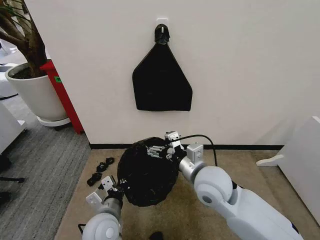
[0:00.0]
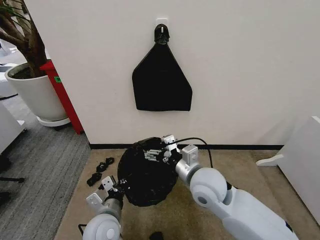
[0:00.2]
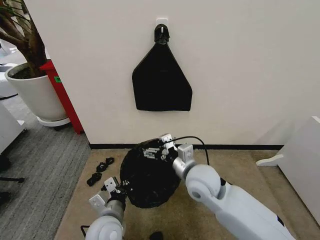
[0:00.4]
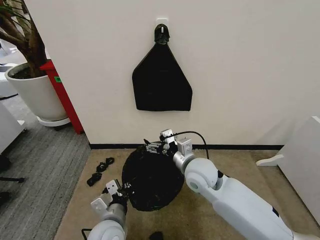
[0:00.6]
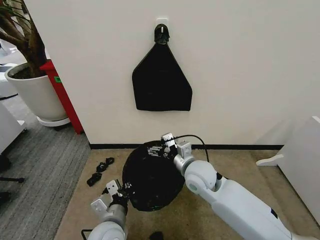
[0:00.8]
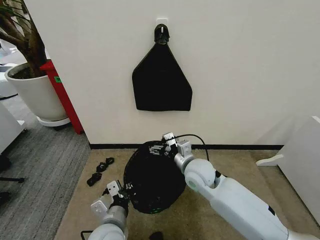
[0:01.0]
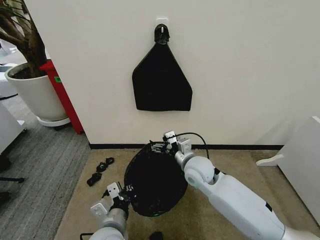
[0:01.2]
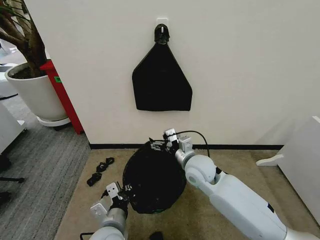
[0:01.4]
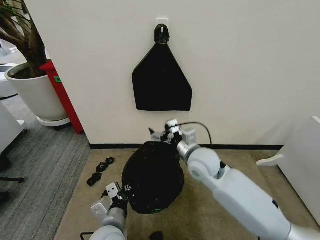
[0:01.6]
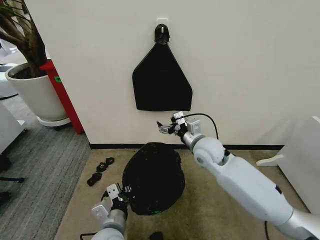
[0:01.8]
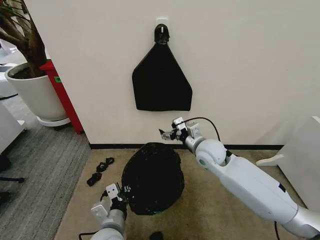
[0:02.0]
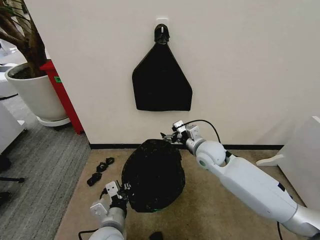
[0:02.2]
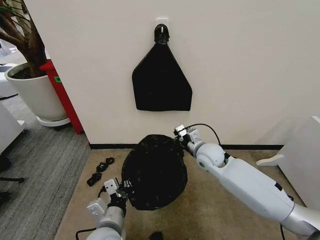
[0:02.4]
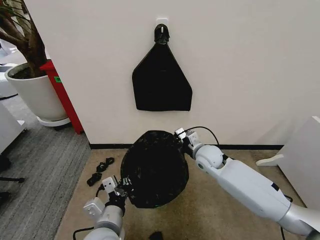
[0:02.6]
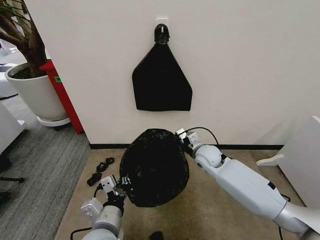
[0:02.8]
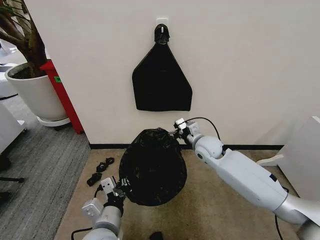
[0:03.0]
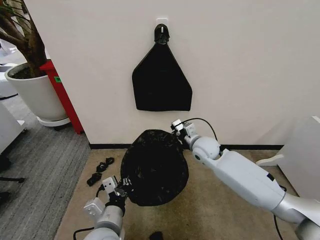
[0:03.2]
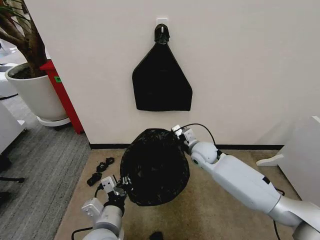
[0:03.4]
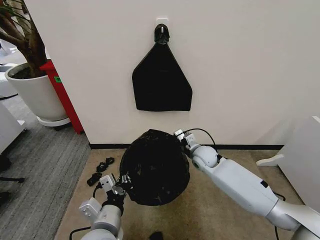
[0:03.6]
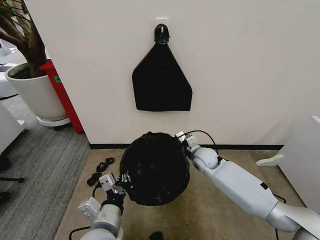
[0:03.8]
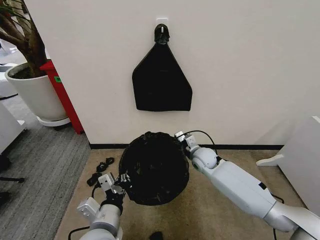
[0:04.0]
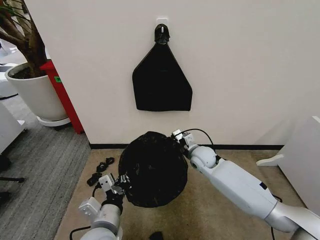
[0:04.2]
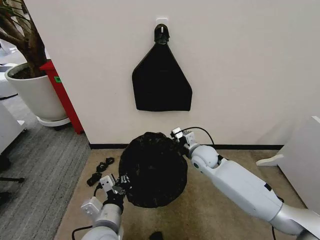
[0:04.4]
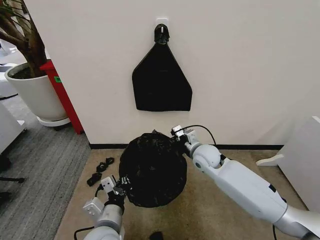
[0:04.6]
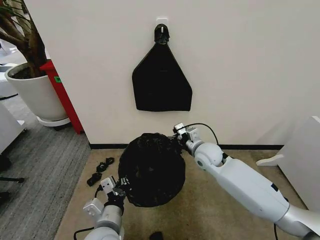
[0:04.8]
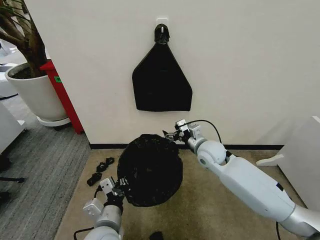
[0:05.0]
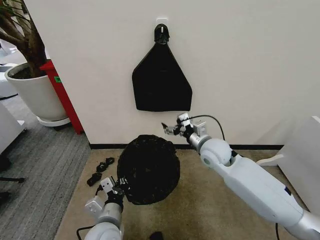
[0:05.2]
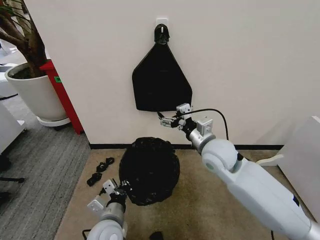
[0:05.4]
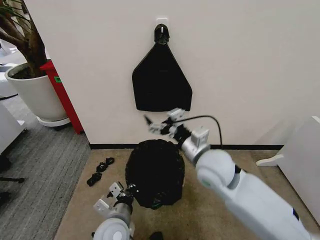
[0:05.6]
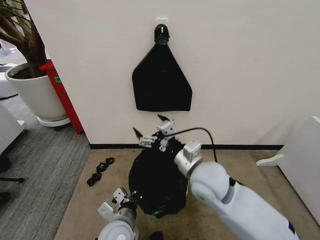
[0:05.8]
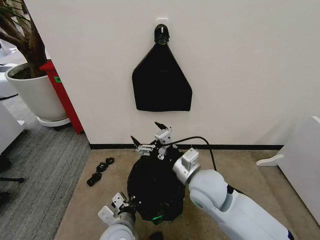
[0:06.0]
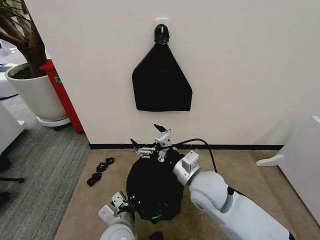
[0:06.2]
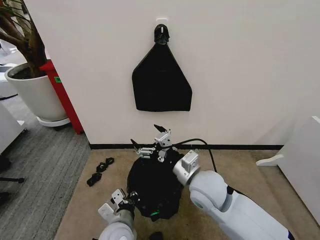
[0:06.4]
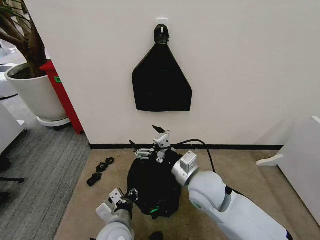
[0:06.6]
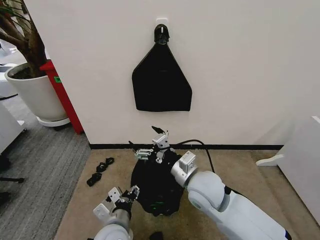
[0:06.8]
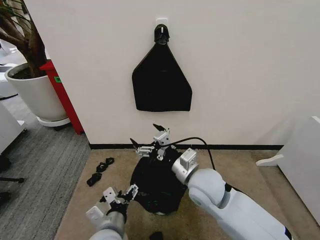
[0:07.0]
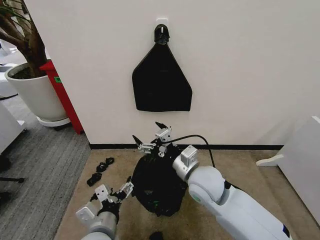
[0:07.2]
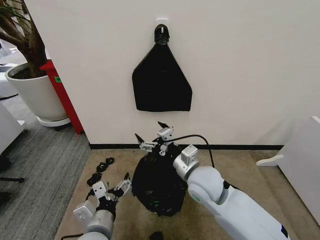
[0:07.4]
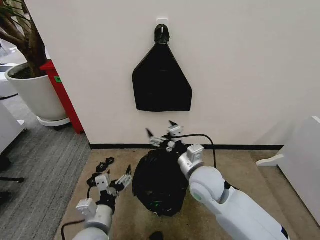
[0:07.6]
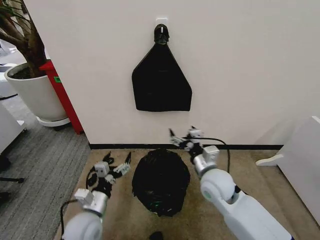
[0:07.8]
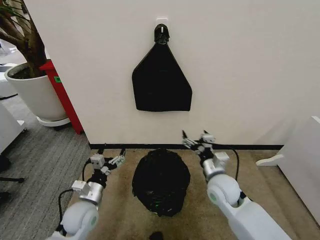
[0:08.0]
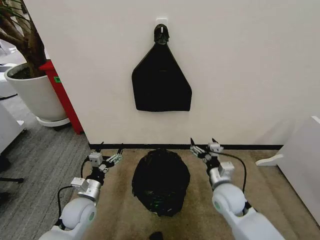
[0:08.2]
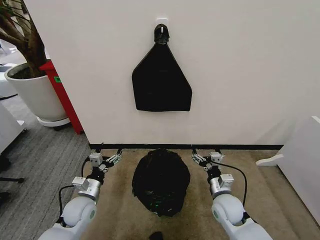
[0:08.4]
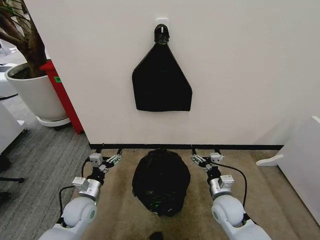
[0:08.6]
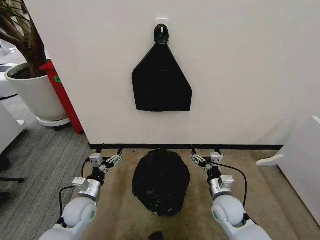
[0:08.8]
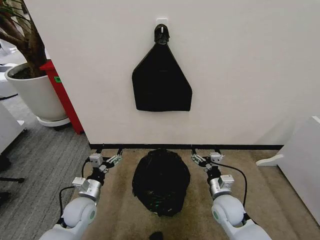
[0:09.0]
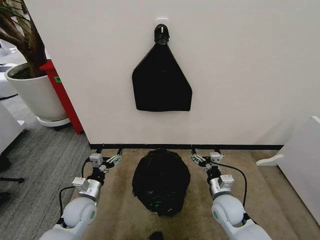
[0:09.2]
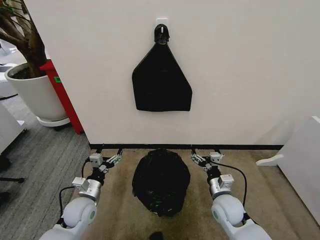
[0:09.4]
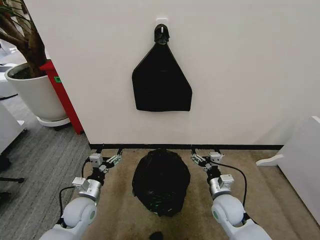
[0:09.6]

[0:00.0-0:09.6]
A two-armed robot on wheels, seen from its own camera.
Task of the whole recording: Place the garbage bag over the trash bin.
0:00.0 to 0:01.6: The right gripper travels forward by some 10 cm.
0:01.6 to 0:03.2: The right gripper travels forward by approximately 10 cm.
0:04.8 to 0:06.4: The right gripper travels backward by approximately 15 cm.
0:06.4 to 0:08.0: The right gripper shifts roughly 10 cm downward and to the right. The left gripper shifts about 15 cm to the left and forward, and opens its fingers.
0:08.0 to 0:09.6: The right gripper goes about 5 cm downward.

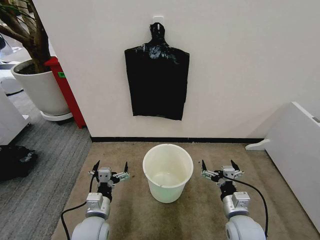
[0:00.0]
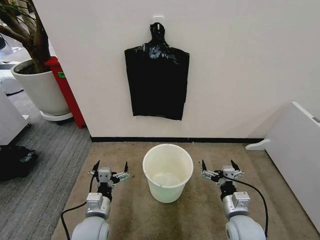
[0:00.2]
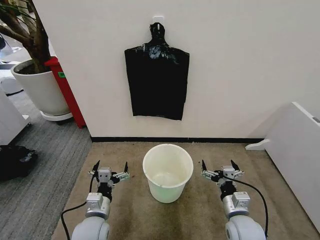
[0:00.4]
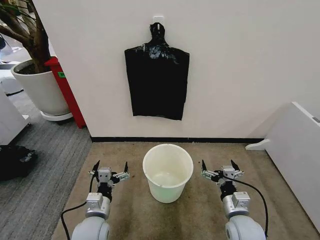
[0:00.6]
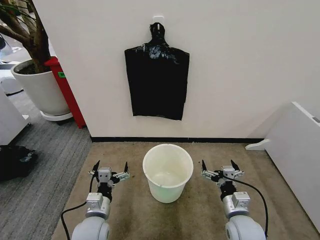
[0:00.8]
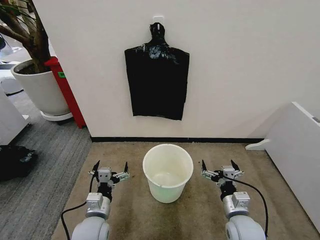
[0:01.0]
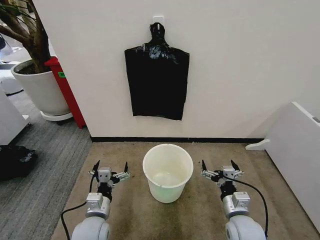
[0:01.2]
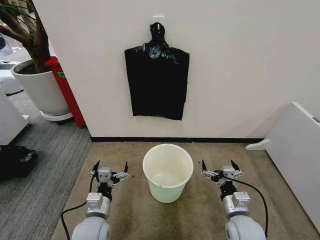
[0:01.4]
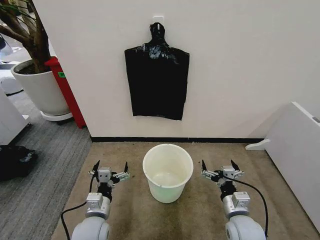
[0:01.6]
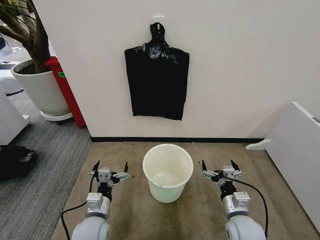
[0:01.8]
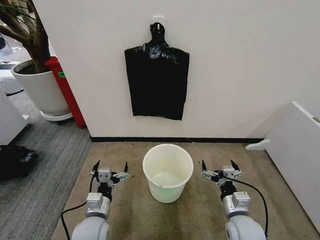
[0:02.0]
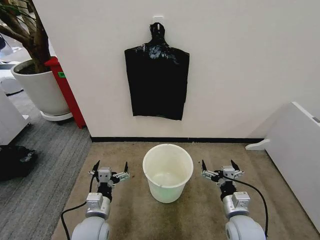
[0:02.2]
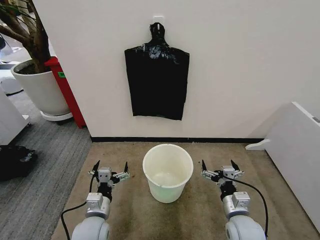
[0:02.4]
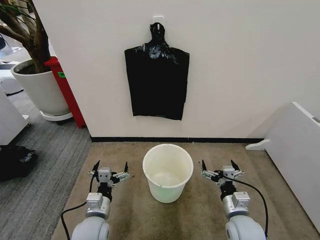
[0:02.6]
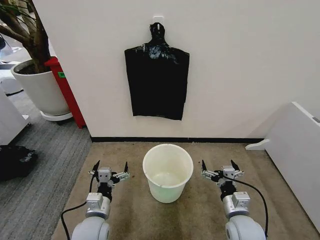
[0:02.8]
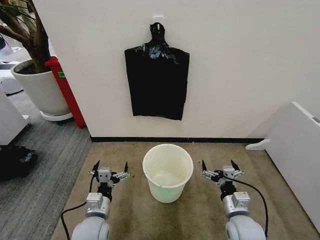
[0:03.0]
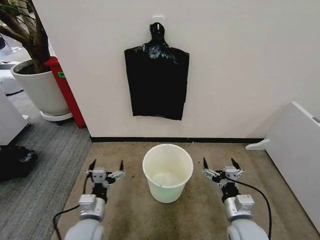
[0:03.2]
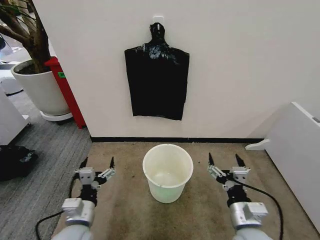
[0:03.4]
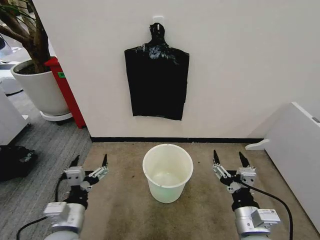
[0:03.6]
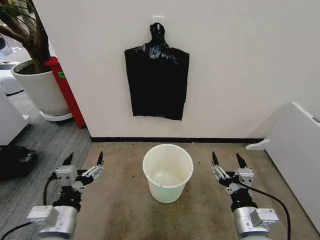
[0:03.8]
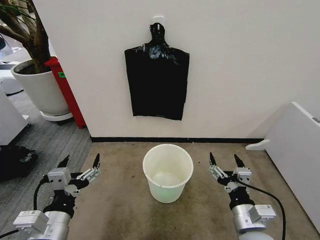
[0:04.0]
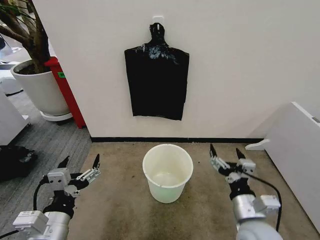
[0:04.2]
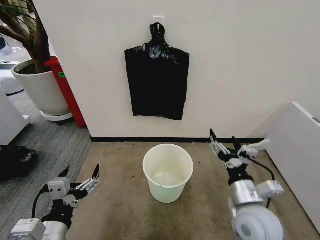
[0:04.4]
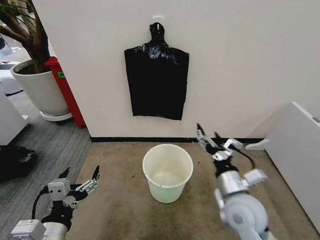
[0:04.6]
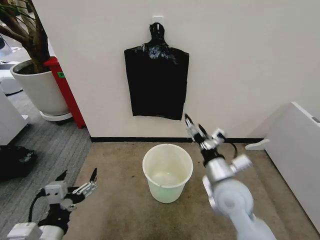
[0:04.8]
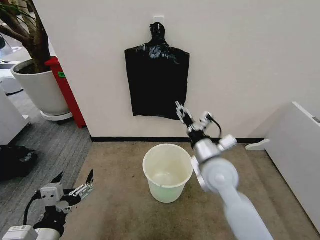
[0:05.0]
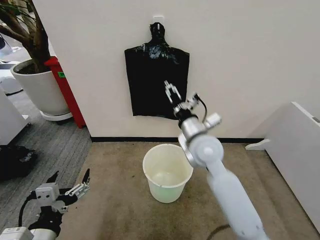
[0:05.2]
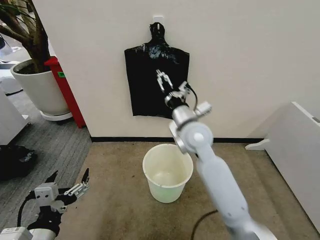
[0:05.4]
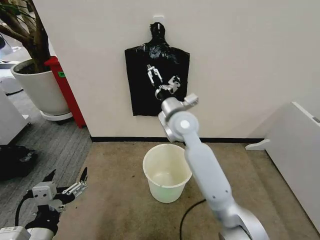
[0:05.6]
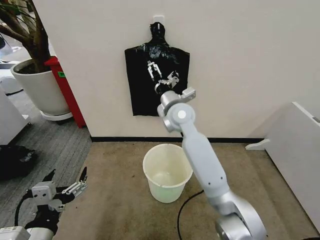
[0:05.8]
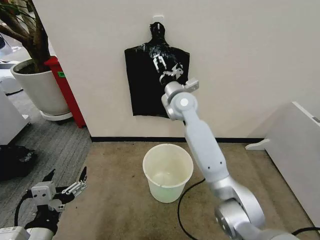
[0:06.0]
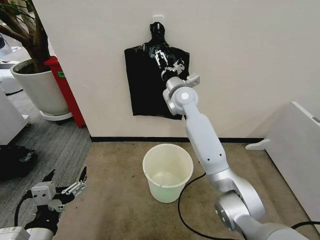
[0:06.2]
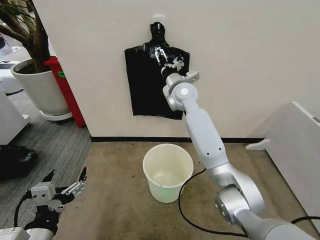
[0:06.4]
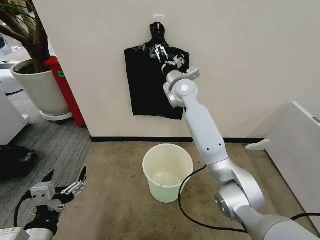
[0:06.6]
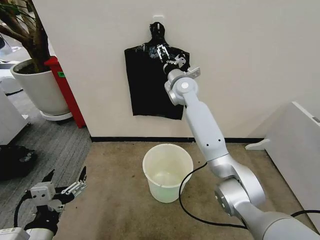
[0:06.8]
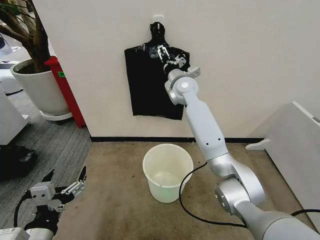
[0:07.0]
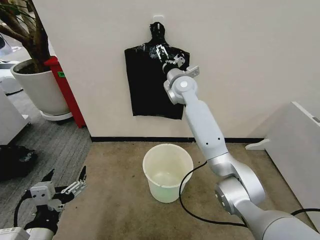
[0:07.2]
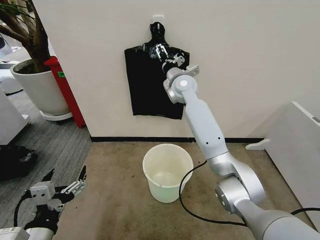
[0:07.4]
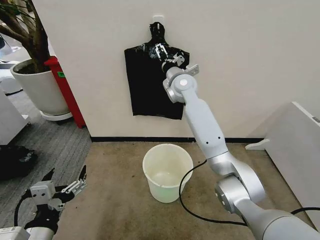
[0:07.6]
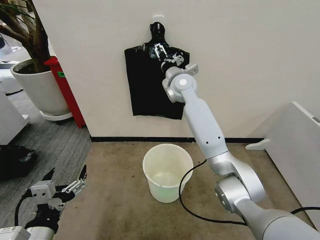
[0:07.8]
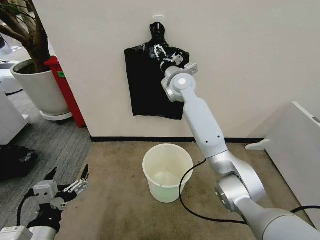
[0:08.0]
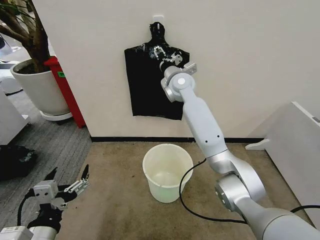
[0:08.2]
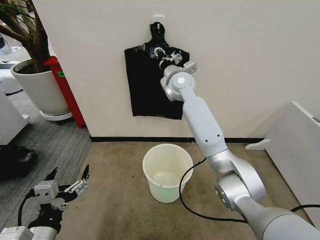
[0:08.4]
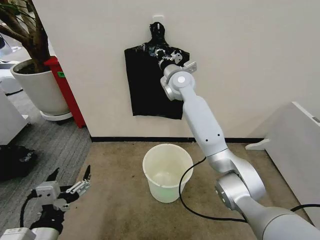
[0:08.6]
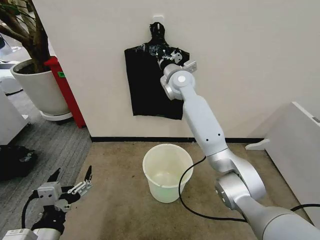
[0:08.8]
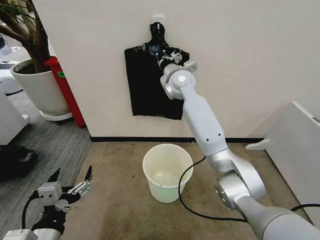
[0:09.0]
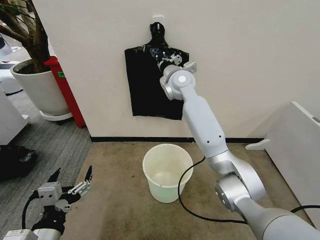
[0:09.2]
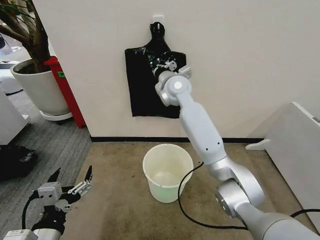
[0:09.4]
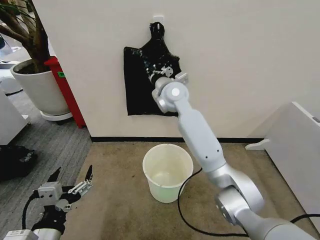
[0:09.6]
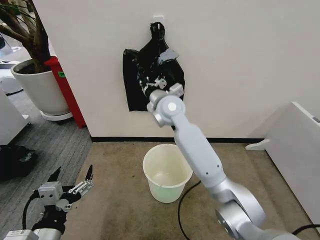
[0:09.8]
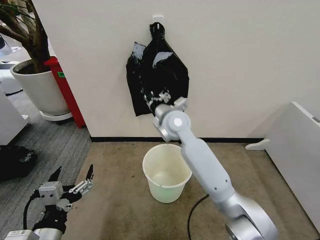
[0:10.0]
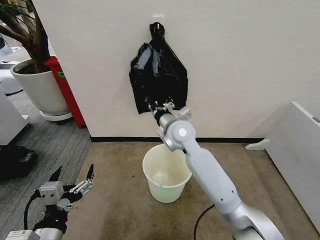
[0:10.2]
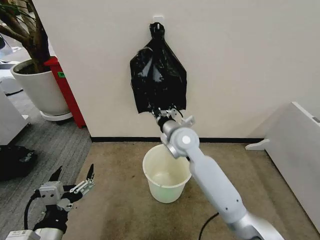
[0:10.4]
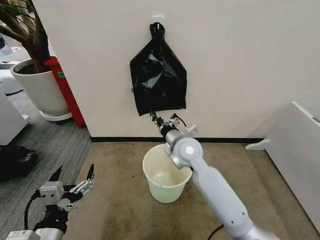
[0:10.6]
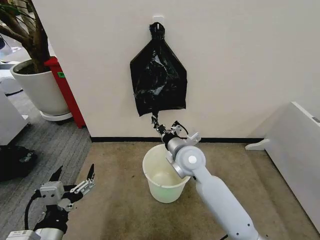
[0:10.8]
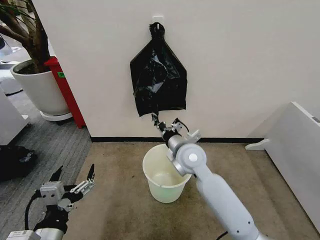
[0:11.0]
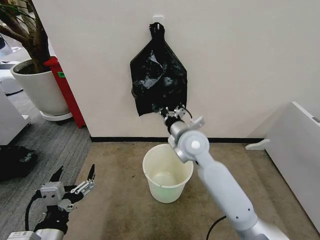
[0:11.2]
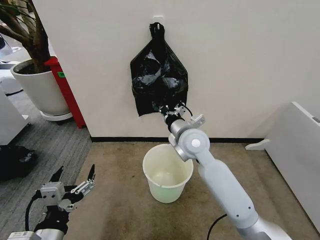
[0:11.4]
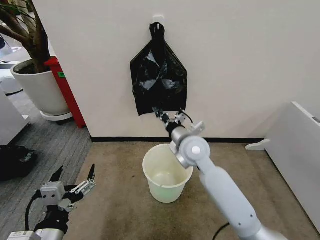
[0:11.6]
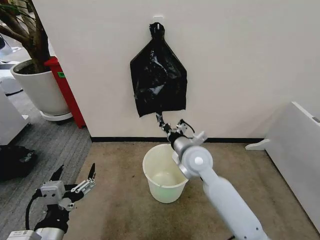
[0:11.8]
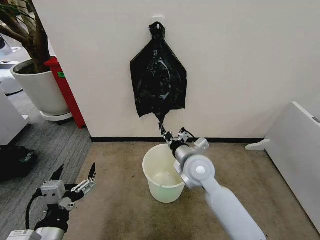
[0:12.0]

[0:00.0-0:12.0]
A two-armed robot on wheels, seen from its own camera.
Task of the whole recording: Place the garbage bag over the trash bin.
0:01.6 to 0:03.0: Neither gripper changes place.
0:03.0 to 0:04.4: The left gripper is displaced upward and backward by about 15 cm, while the right gripper travels upward by roughly 10 cm.
0:04.4 to 0:06.0: The right gripper heads forward, to the left and upward, covering approximately 35 cm.
0:06.0 to 0:07.6: The right gripper goes roughly 5 cm forward.
0:07.6 to 0:09.0: The right gripper closes.
0:09.0 to 0:10.4: The right gripper moves backward and downward, about 20 cm.
0:10.4 to 0:12.0: The right gripper moves backward, some 5 cm.

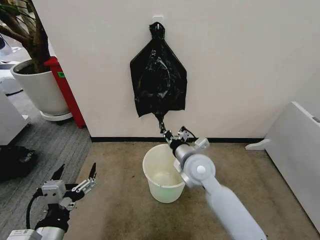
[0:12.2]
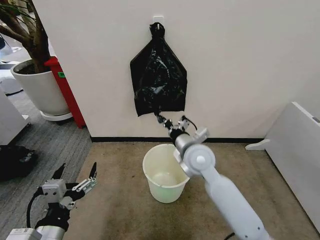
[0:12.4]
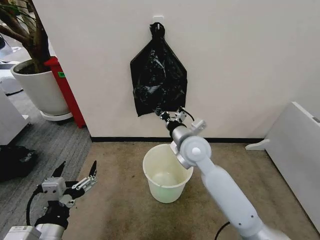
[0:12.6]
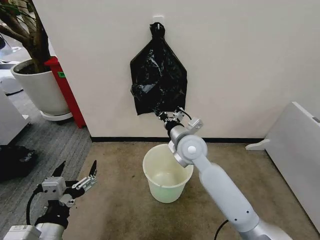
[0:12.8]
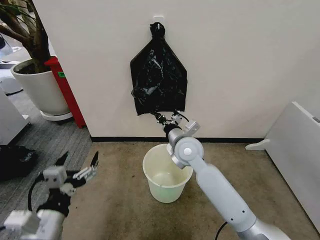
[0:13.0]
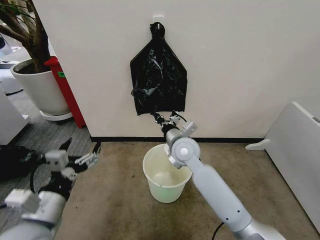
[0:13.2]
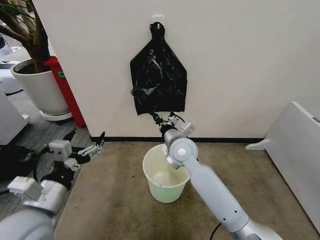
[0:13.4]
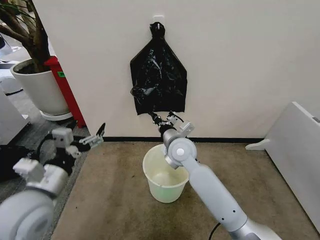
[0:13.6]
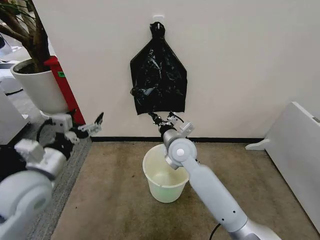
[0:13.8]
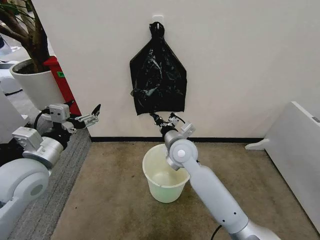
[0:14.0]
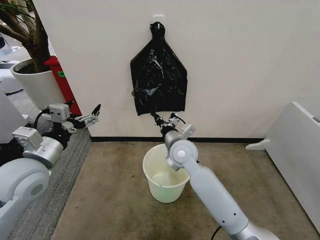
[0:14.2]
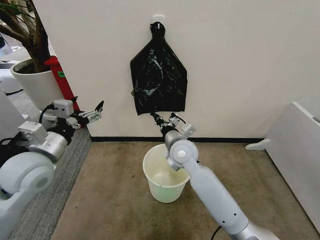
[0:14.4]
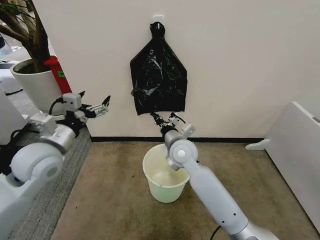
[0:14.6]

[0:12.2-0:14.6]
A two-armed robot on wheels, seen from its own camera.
Task of the whole recording: Place the garbage bag over the trash bin.
0:12.2 to 0:13.4: The left gripper goes some 10 cm forward and upward. The right gripper is displaced forward by about 5 cm.
0:13.4 to 0:14.6: The left gripper travels forward by roughly 15 cm.
